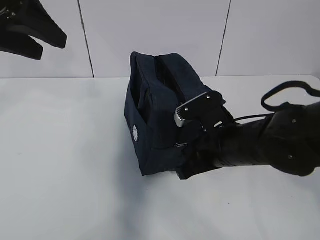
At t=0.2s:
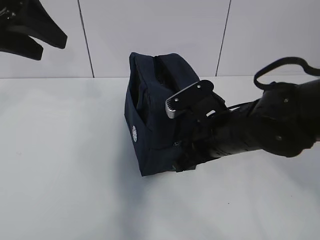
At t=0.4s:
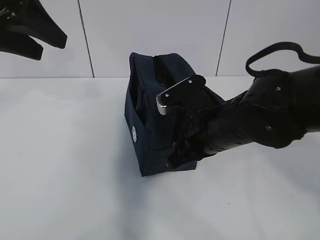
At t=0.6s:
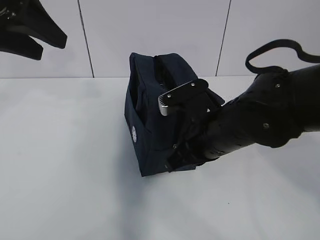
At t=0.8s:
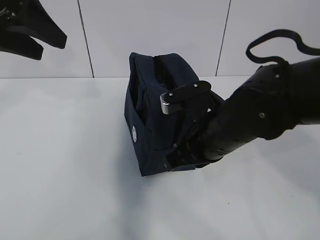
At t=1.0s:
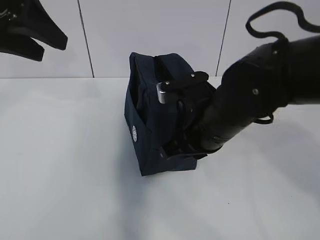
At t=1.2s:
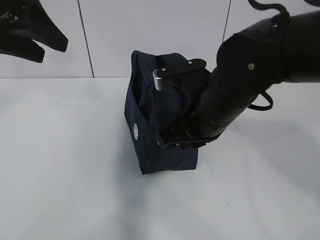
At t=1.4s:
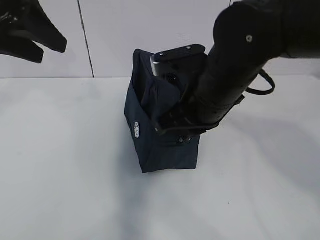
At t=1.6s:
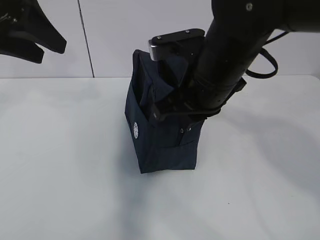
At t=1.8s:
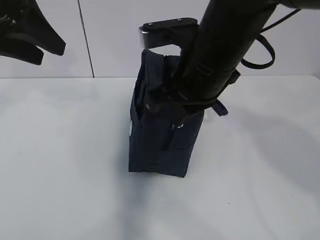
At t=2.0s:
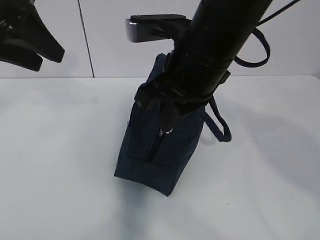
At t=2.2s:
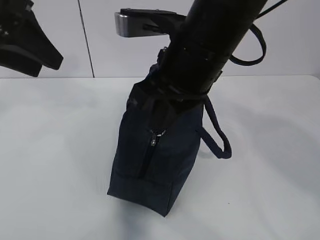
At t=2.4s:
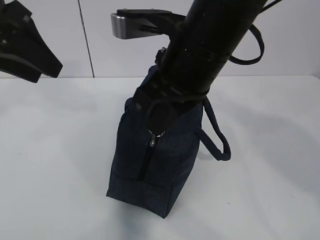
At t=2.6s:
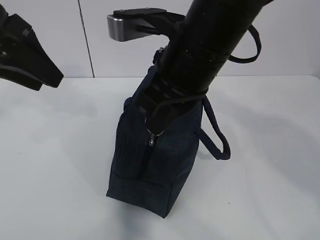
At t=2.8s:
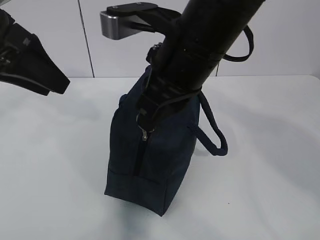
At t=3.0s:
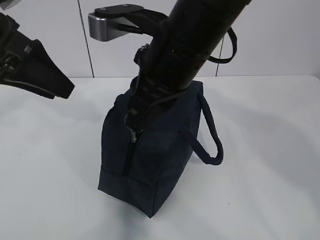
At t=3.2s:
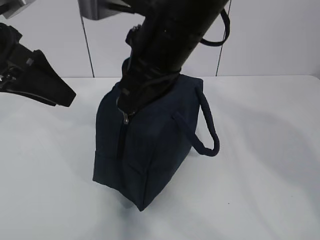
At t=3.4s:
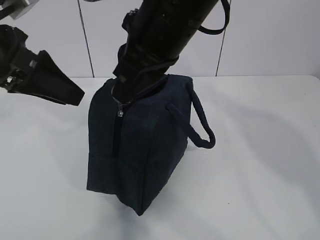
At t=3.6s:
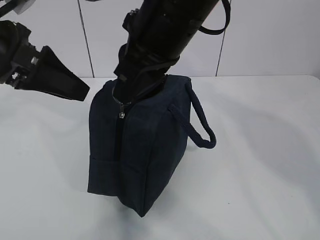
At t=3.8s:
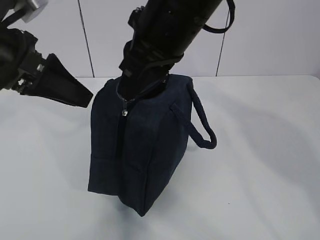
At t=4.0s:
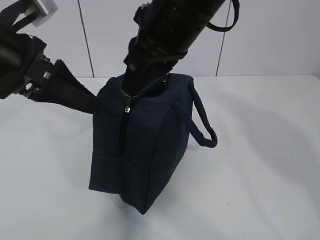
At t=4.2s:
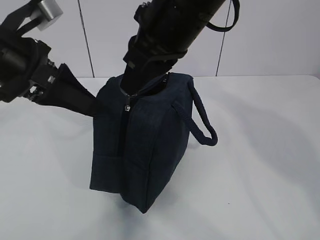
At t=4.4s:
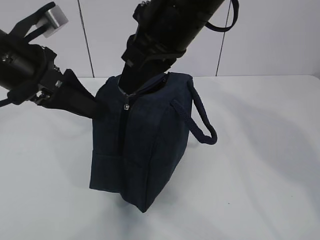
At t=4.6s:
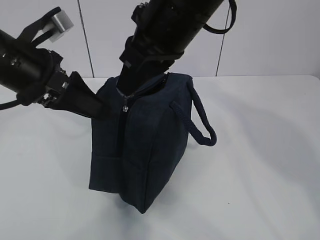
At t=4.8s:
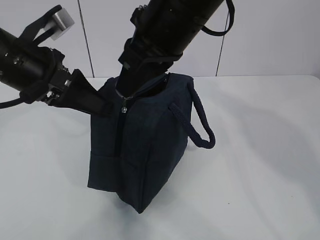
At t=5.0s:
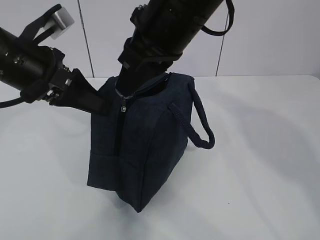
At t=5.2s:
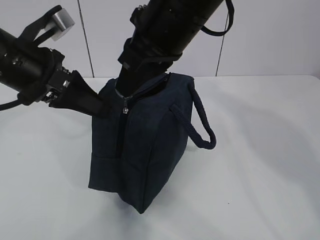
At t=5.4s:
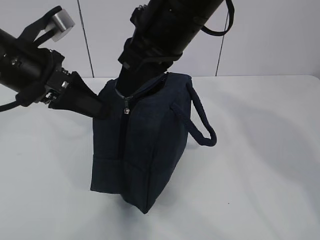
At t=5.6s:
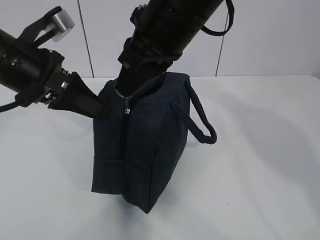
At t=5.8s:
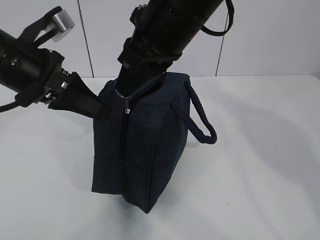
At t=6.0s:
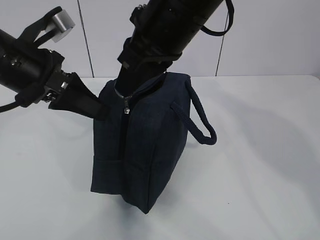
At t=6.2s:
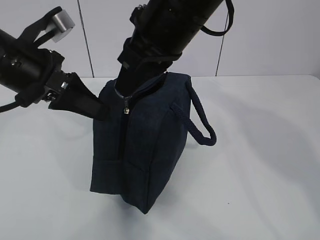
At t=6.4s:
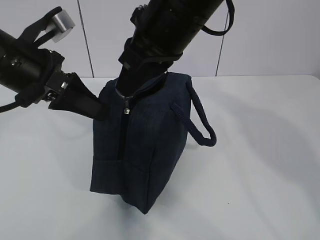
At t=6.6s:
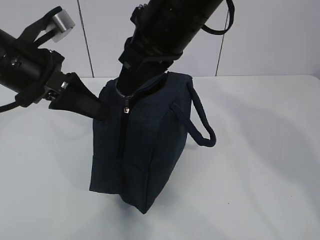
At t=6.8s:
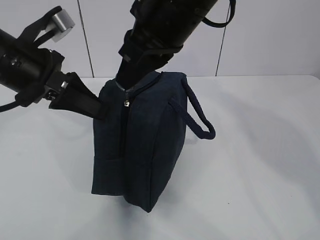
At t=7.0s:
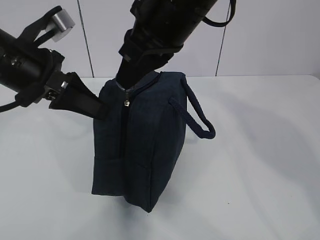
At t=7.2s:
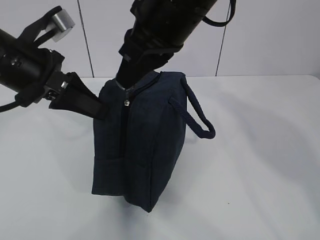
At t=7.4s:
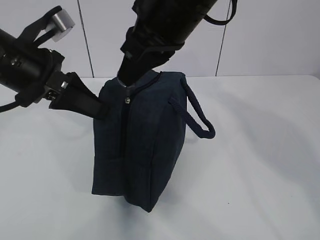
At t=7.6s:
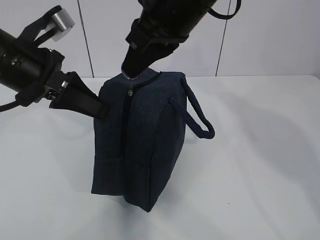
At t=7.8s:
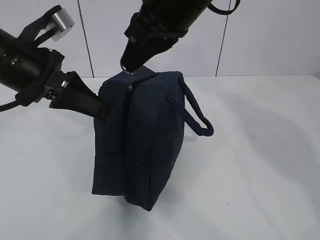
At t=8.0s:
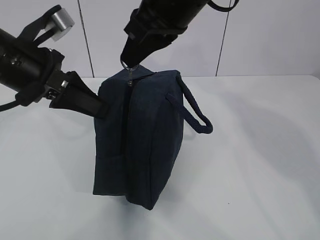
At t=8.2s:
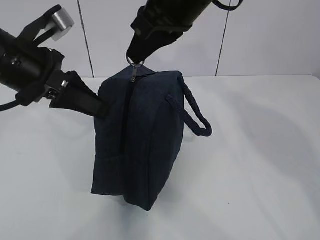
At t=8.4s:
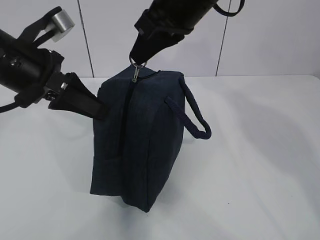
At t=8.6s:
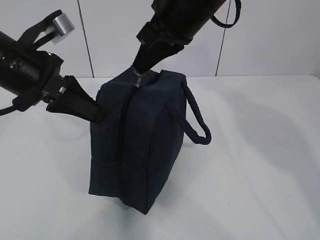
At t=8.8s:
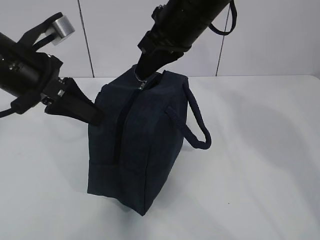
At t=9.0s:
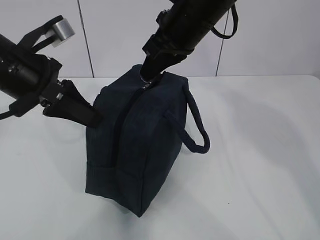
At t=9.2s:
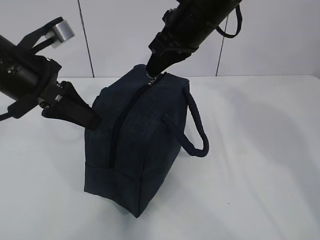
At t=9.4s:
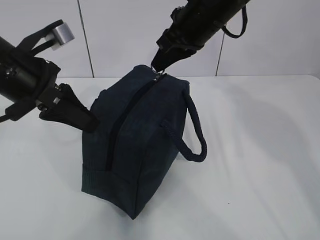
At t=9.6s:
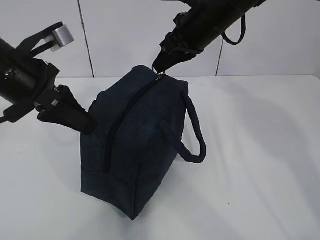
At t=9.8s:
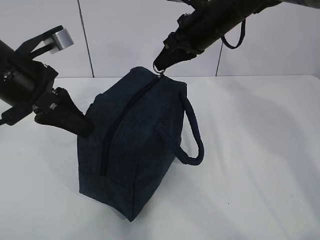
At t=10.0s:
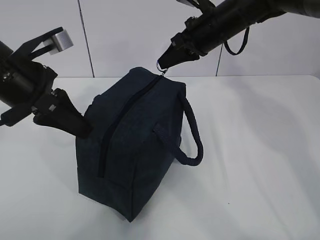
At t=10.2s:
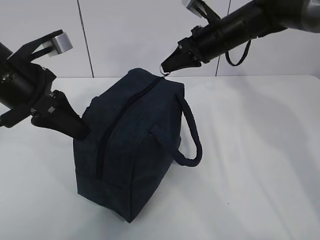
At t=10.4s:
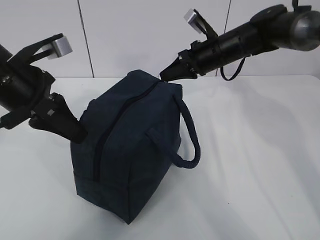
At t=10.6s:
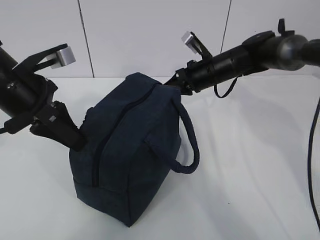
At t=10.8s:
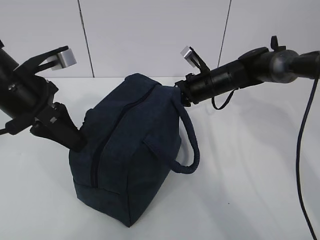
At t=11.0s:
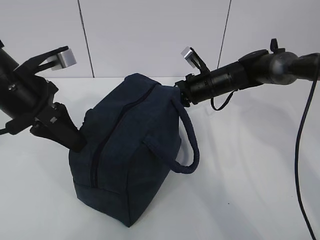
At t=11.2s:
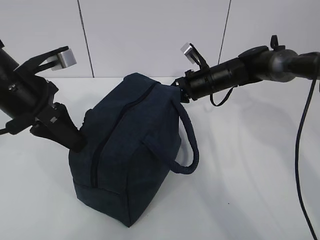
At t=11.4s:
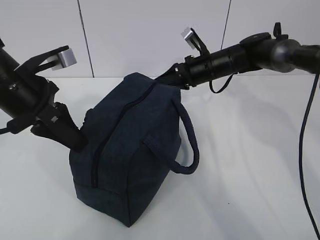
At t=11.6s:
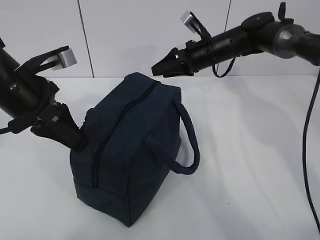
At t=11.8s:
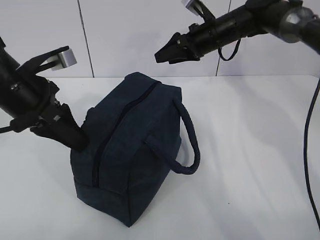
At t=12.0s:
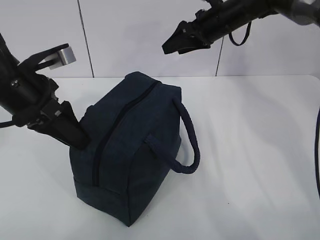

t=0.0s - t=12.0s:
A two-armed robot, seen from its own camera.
t=0.0s - t=1.6s: The right gripper is displaced upward by approximately 10 cm.
t=1.6s - t=3.0s: The right gripper ends up about 5 cm from where it was.
t=3.0s - t=4.4s: The left gripper moves approximately 5 cm.
t=4.4s - t=6.0s: The left gripper closes.
t=6.0s - t=7.6s: The grippers make only small movements.
t=7.6s - t=9.0s: The right gripper shifts roughly 5 cm forward.
t=9.0s - t=10.4s: The right gripper goes about 15 cm downward, forward and to the right.
t=10.4s - t=12.0s: The right gripper reaches roughly 10 cm downward, then returns, and opens up. The left gripper opens.

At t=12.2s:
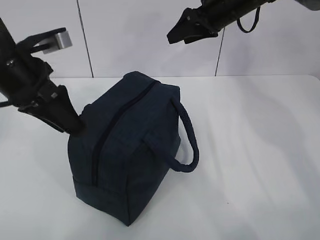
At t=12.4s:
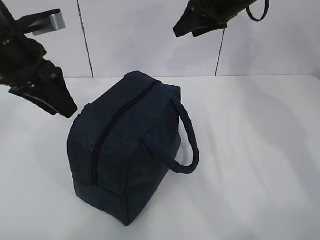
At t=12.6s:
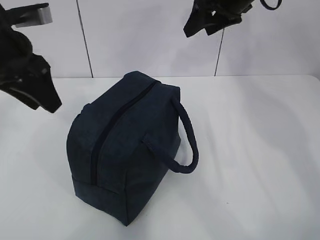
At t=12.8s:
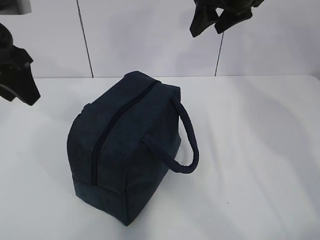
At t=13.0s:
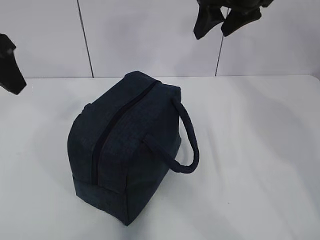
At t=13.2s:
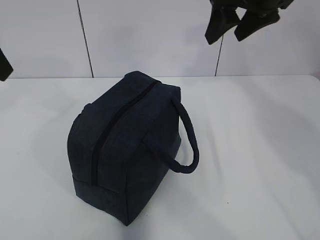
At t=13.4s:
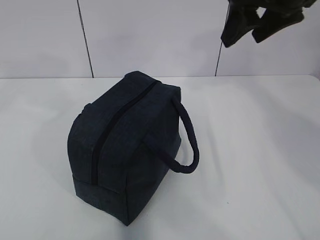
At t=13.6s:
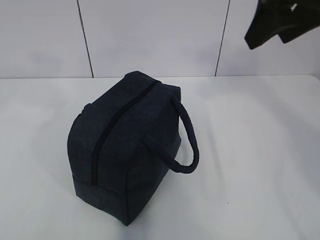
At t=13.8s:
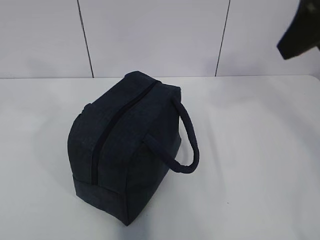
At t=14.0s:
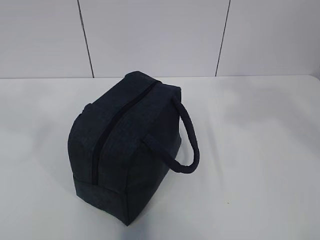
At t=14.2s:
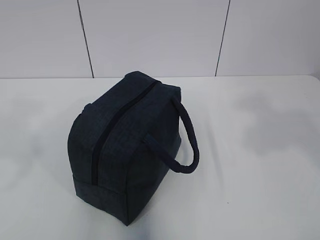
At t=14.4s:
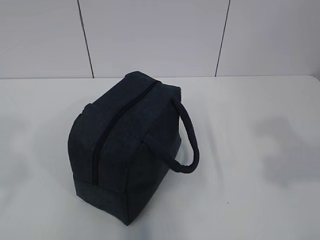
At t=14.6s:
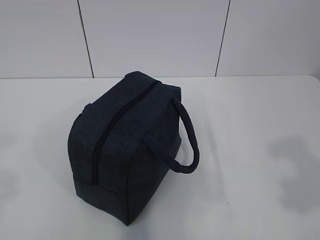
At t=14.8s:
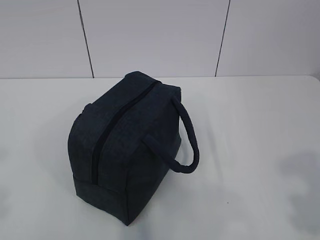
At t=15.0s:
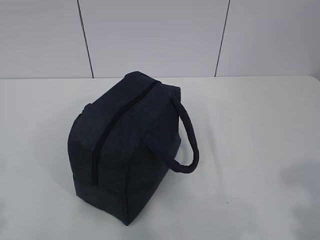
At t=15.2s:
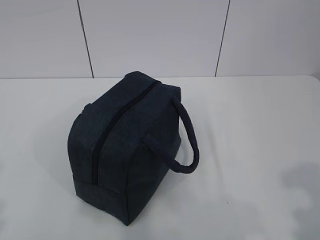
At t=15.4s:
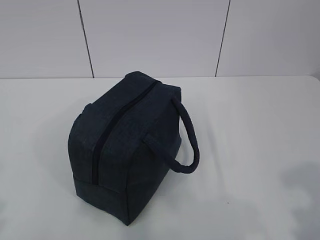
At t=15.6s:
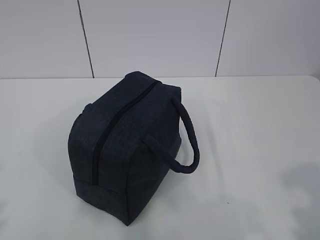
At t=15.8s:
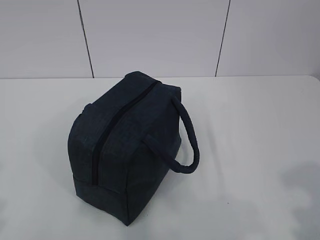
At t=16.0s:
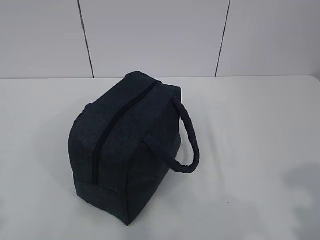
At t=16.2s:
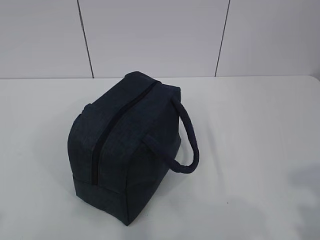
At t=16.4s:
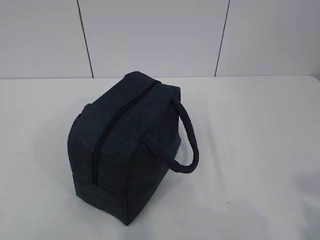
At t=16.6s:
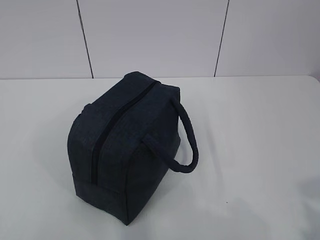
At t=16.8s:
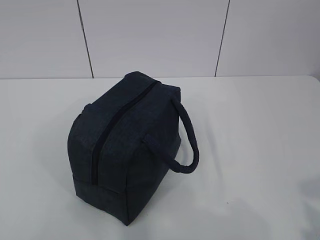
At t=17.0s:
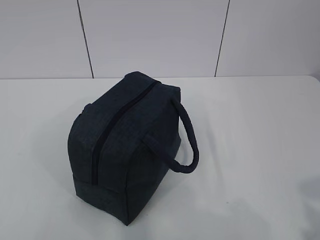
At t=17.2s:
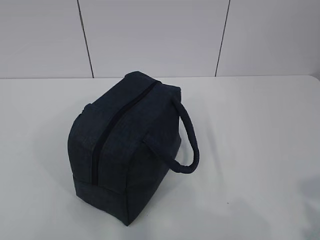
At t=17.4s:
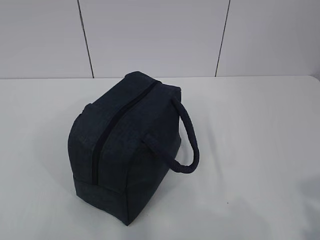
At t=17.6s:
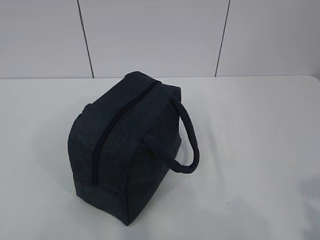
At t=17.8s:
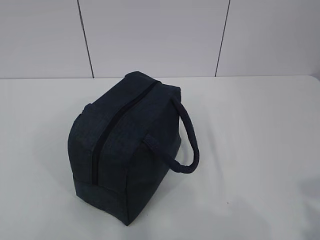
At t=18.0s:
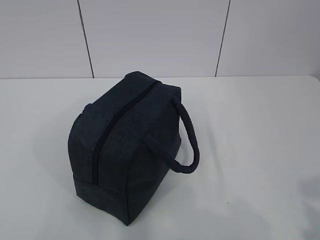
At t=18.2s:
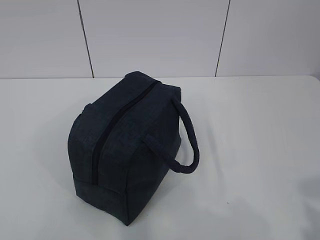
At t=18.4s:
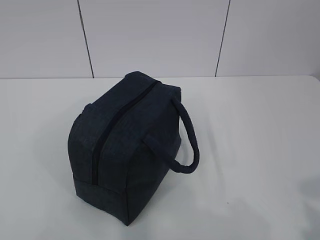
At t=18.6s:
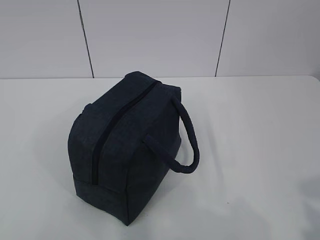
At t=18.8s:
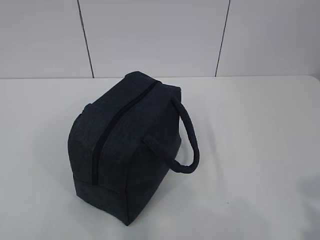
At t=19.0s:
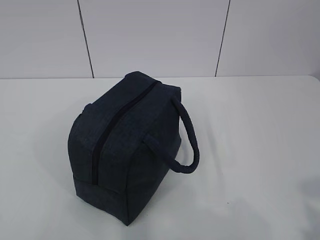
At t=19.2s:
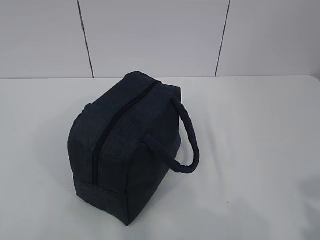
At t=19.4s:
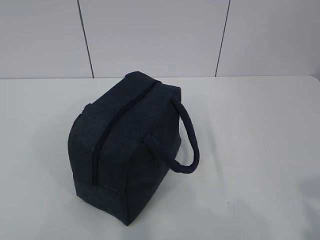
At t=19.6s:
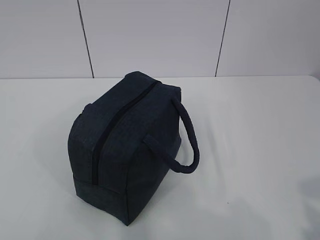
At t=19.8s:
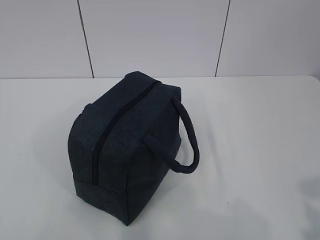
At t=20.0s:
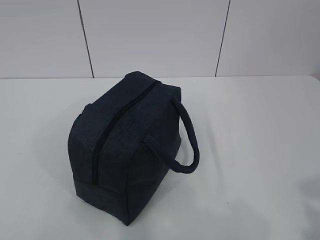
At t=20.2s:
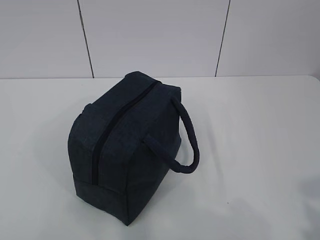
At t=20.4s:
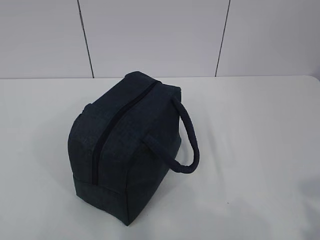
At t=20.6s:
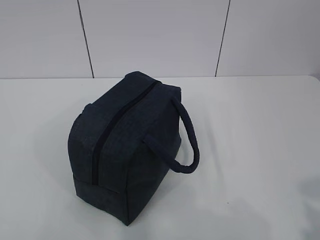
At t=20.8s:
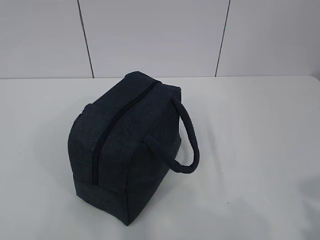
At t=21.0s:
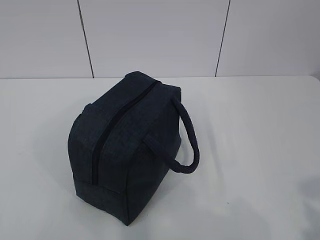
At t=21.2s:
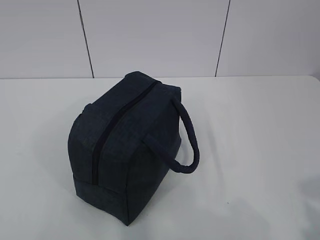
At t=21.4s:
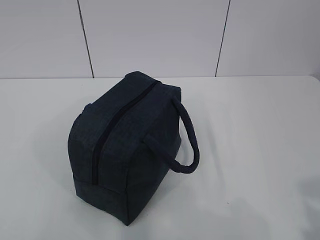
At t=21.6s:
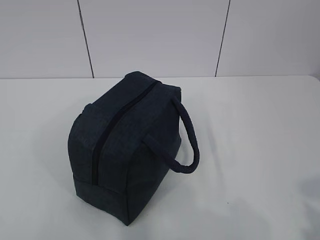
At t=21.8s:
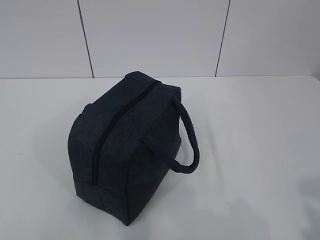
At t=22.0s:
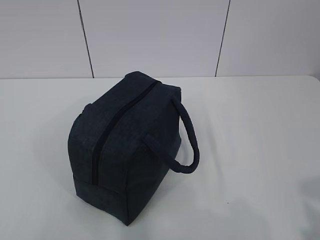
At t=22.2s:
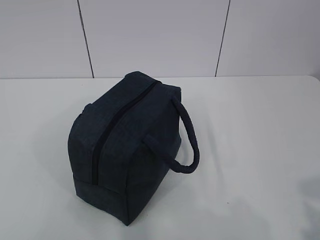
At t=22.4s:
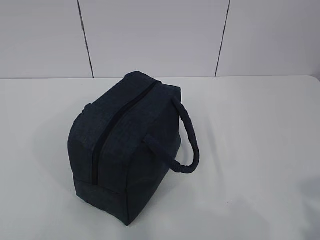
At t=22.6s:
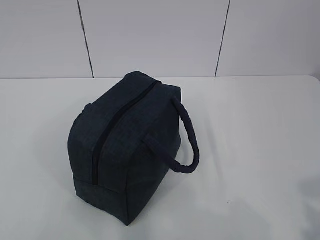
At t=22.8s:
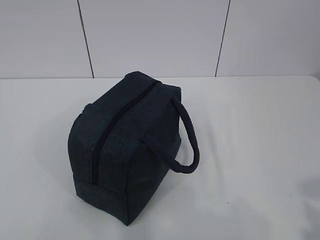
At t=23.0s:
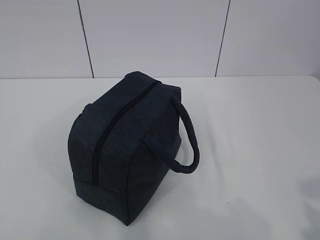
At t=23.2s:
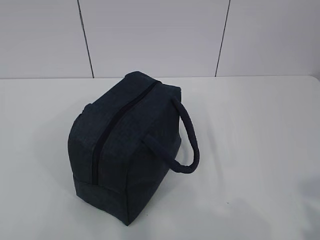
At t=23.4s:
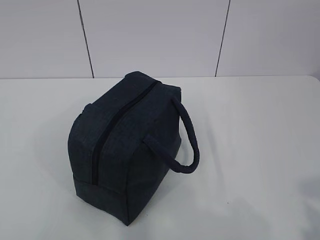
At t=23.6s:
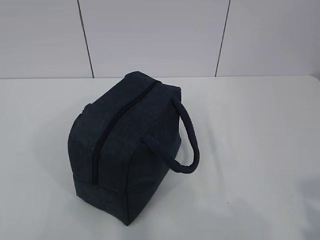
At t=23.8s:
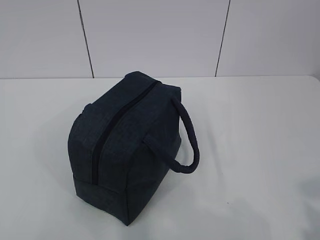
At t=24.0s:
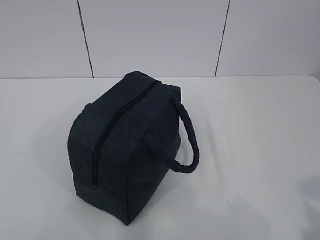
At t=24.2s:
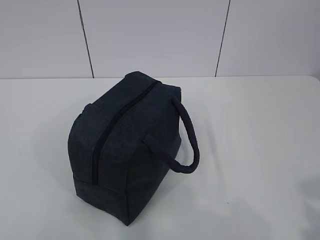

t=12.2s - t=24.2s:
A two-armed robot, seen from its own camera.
t=12.2s - t=13.8s: The left gripper goes some 20 cm upward, backward and to the left. Meanwhile the right gripper moves backward and upward, some 30 cm.
t=13.8s - t=15.2s: The two grippers go some 25 cm backward and downward.
t=16.6s - t=24.2s: The two grippers keep their place.
